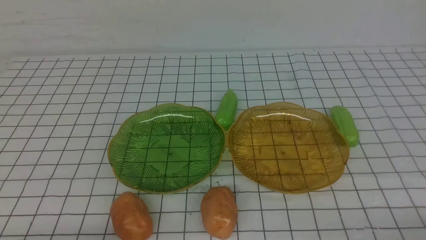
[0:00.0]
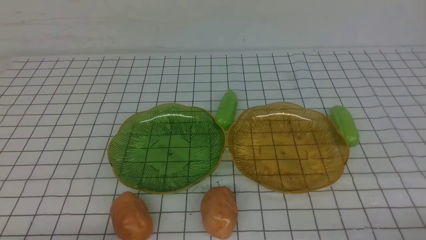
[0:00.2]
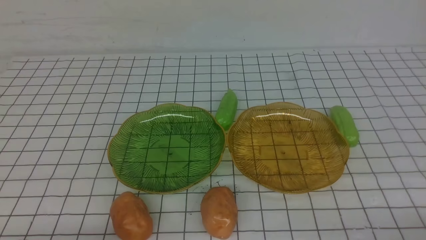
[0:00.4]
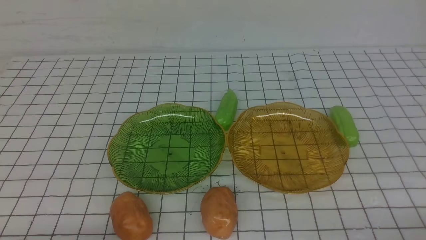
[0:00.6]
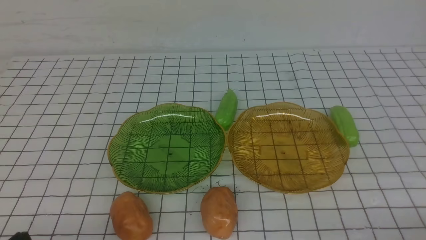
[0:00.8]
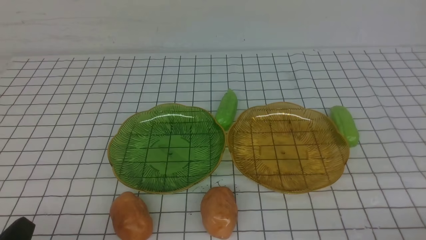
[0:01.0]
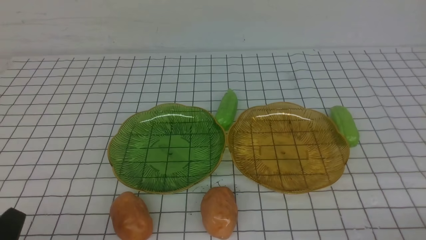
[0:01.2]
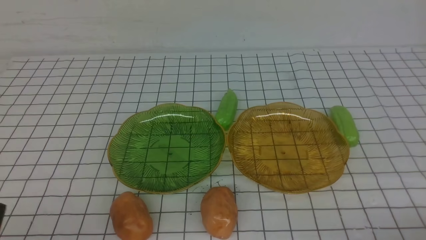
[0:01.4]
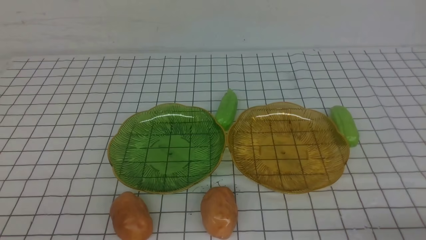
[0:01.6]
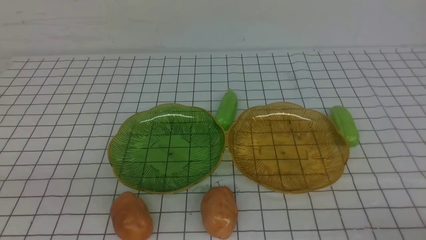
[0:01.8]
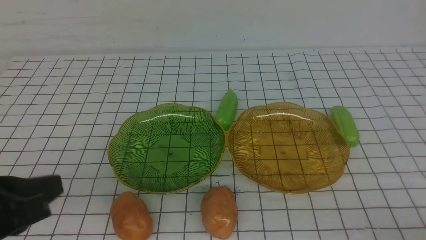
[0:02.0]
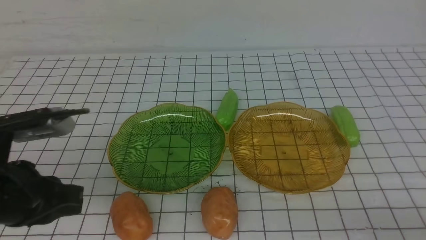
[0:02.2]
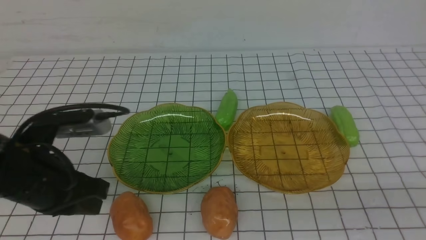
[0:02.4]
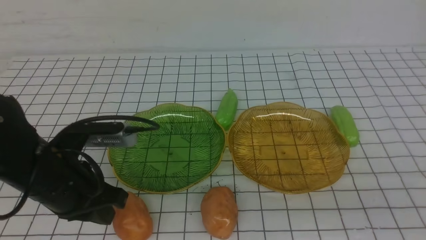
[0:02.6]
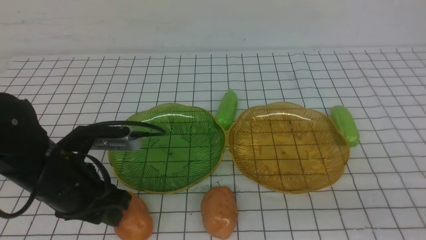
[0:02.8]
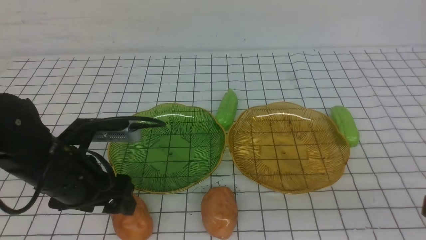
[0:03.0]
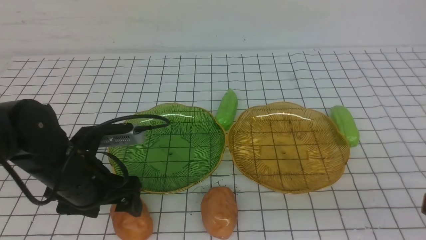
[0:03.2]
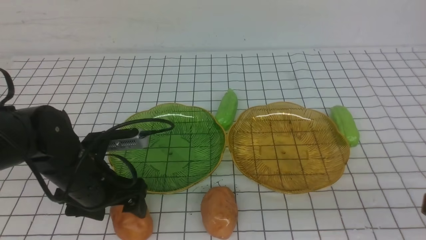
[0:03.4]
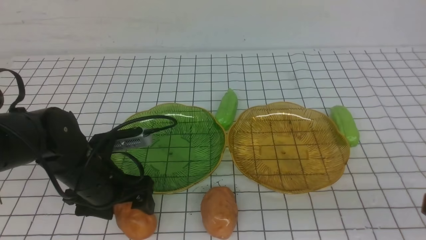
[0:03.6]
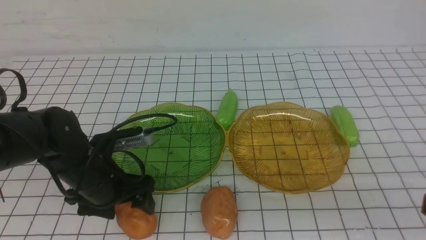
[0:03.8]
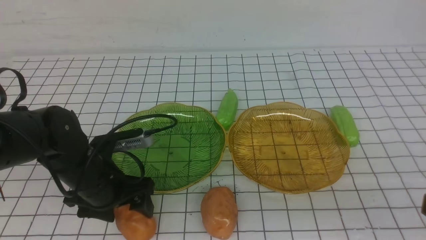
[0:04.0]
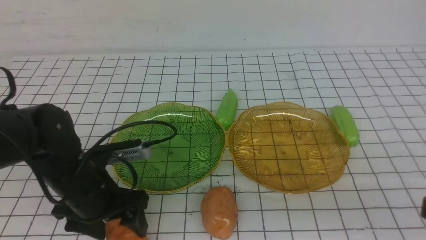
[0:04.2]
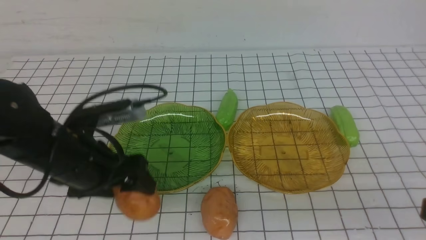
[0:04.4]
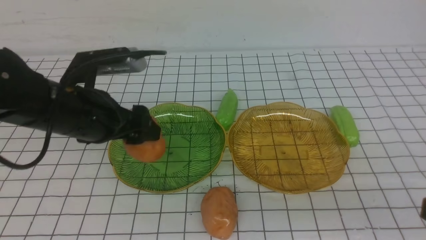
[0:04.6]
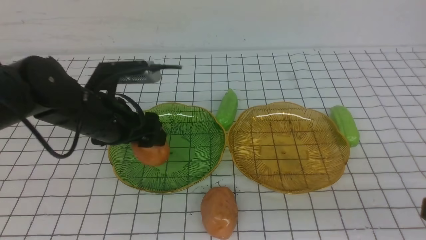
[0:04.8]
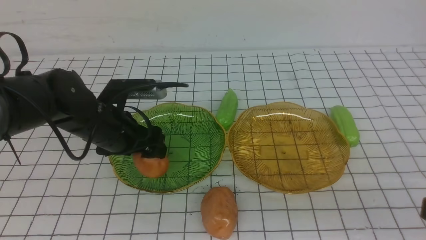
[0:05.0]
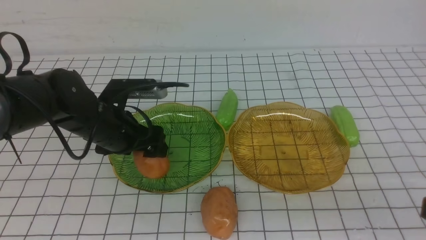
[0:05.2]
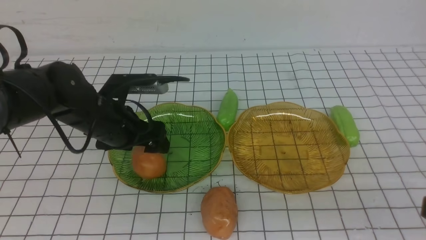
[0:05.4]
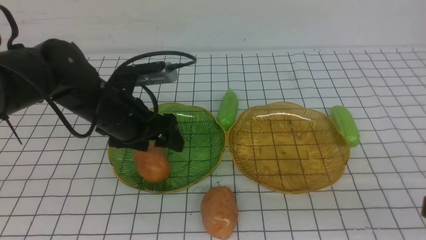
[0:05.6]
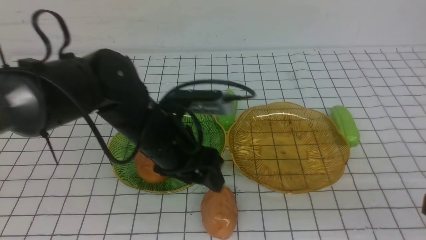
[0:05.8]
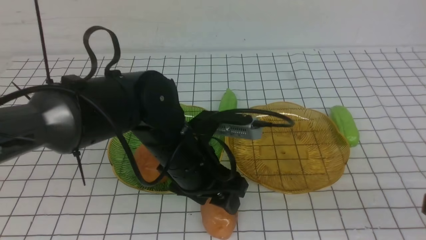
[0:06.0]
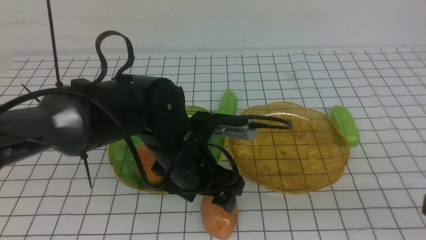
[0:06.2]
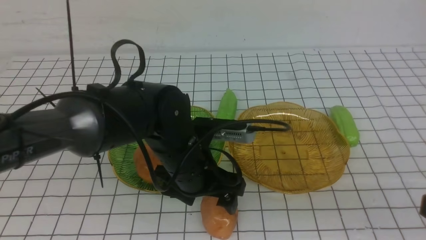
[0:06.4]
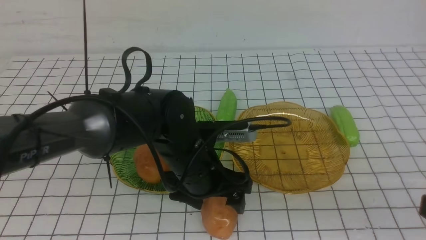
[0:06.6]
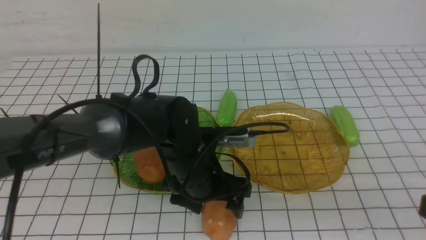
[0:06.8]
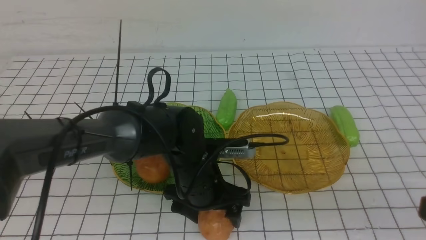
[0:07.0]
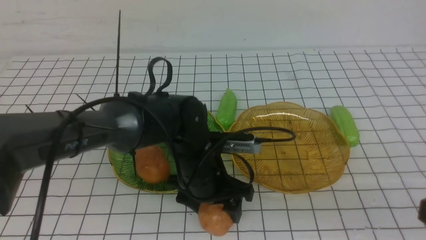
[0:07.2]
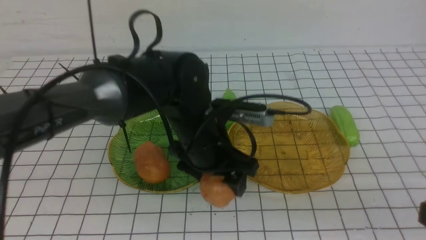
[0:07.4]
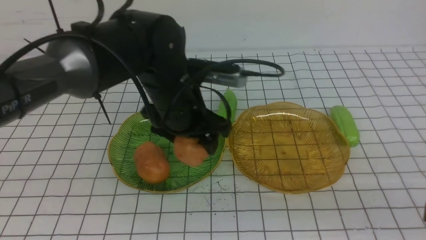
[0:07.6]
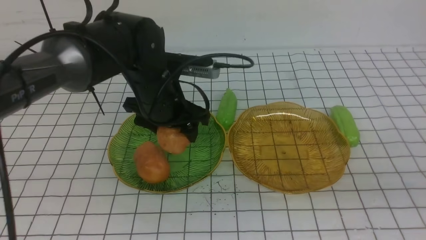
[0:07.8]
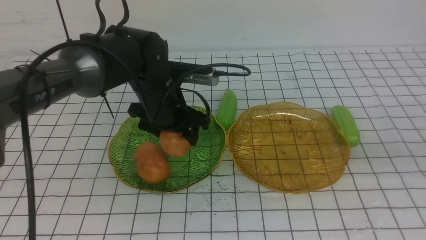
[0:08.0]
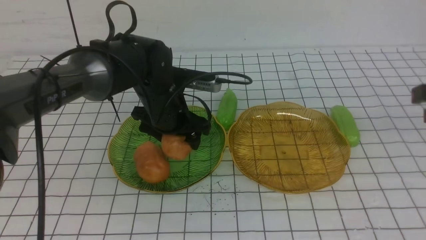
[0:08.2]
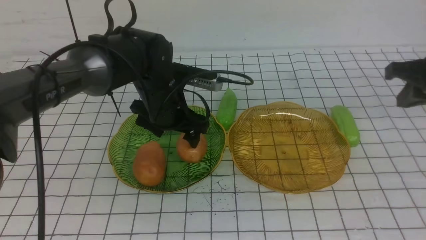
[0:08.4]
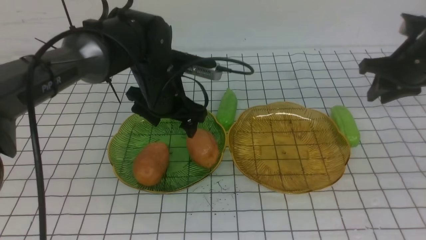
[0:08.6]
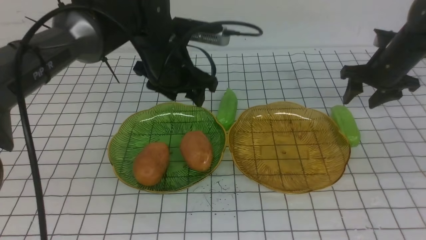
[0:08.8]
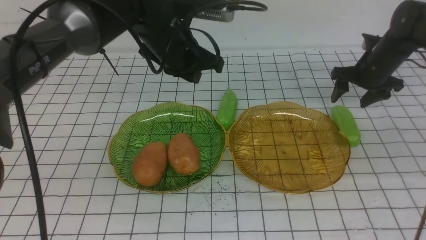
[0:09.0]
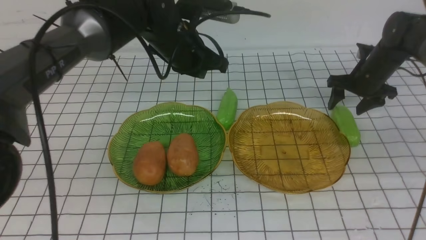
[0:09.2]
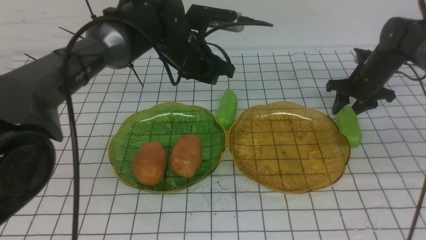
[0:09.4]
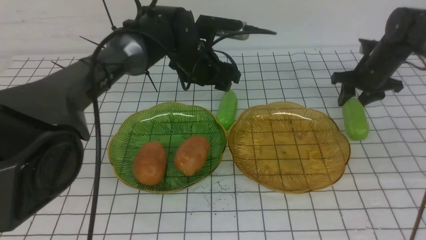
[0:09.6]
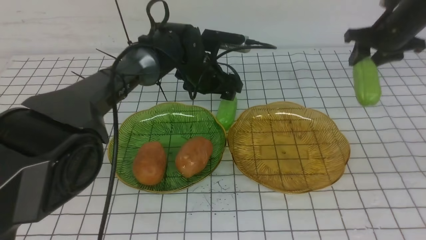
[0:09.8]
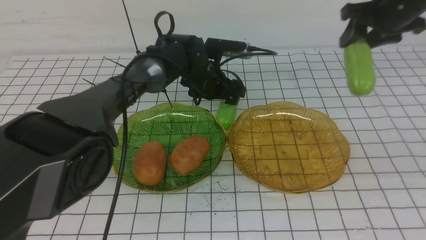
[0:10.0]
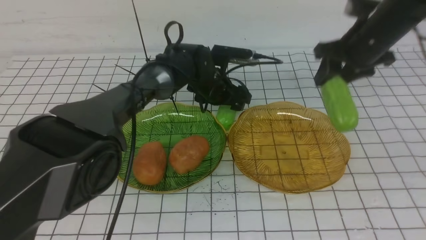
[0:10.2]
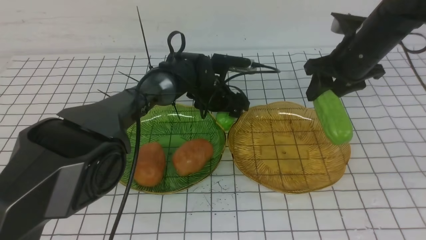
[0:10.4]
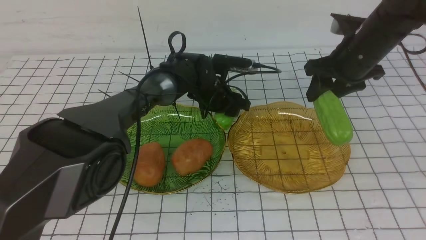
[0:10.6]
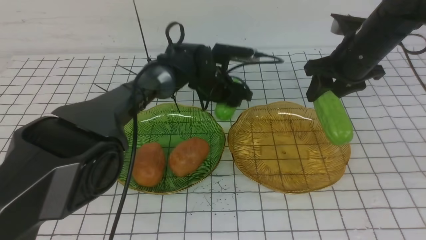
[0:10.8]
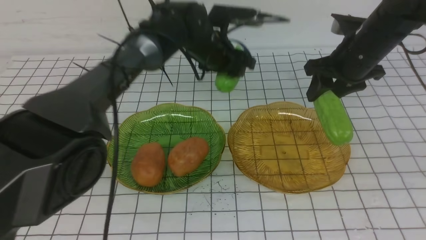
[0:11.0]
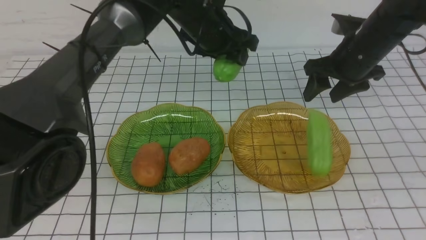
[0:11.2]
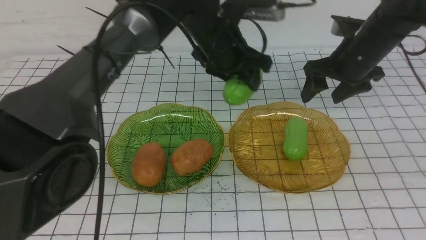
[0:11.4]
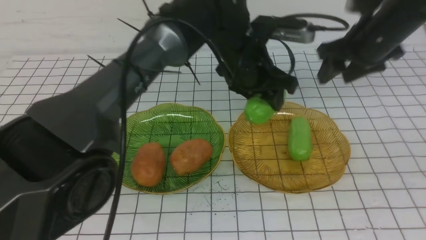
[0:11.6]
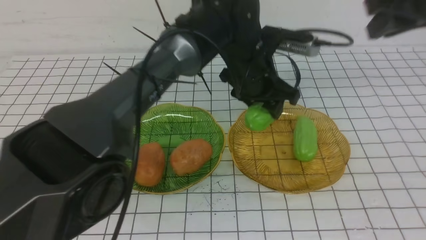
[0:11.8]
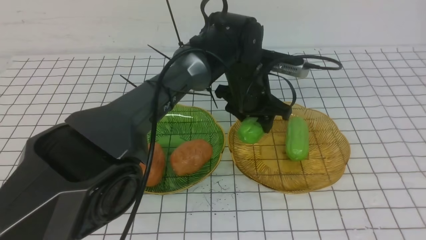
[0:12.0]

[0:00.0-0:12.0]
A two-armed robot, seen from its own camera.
Step, 0:00.0 to 0:08.4: Grab a potato with your left arm and put it on the left plate.
Step, 0:08.6 to 0:11.2: use the right arm to grab a chayote and put it into the right plate.
0:01.6 to 0:03.0: The left gripper goes roughly 20 cm forward, and opens; the right gripper travels upward by about 10 cm.
0:03.0 to 0:04.4: The grippers move only a little.
0:04.4 to 0:06.0: The left gripper travels to the right by approximately 10 cm.
0:06.0 to 0:07.6: The left gripper shifts approximately 5 cm forward, and travels downward and back again, approximately 5 cm each way.
0:07.6 to 0:09.0: The left gripper shifts roughly 10 cm forward, and closes. The right gripper travels forward by some 40 cm, and opens its fingers.
0:09.0 to 0:10.4: The left gripper is displaced downward and forward by some 15 cm, and opens, while the right gripper travels upward, to the left and backward by some 15 cm.
0:10.4 to 0:12.0: The left gripper is displaced upward, backward and to the right by approximately 15 cm, while the right gripper shifts approximately 30 cm backward and upward, and closes its fingers.

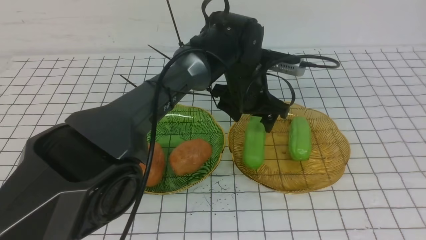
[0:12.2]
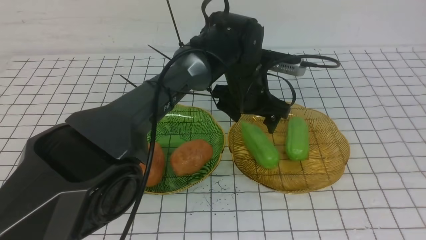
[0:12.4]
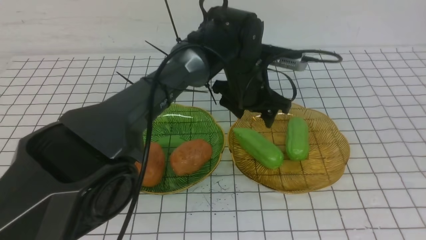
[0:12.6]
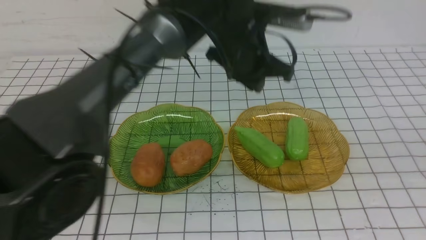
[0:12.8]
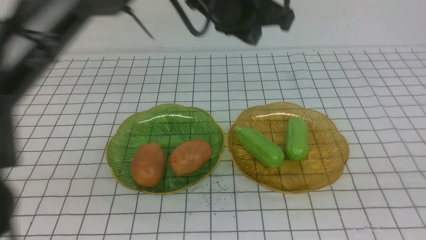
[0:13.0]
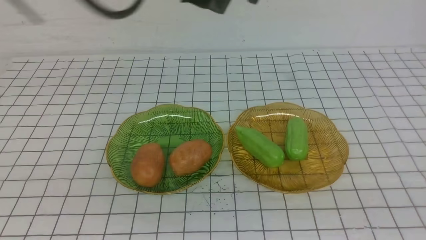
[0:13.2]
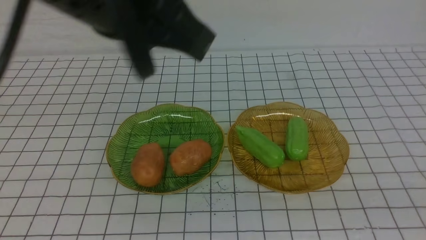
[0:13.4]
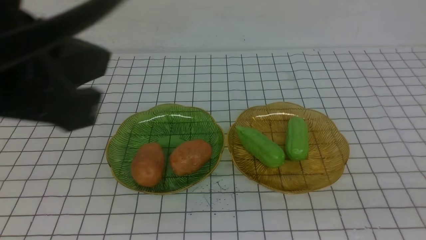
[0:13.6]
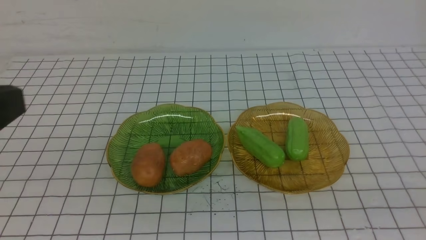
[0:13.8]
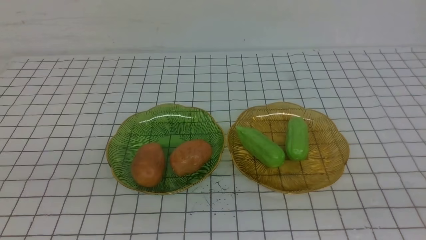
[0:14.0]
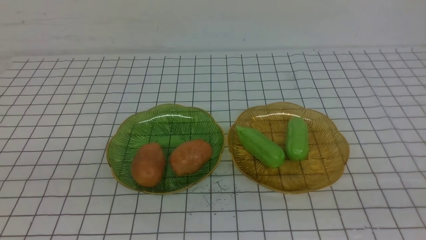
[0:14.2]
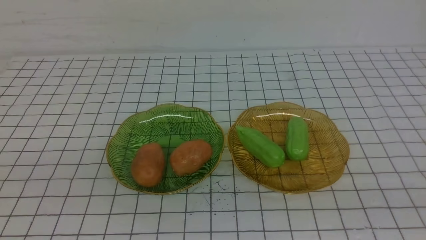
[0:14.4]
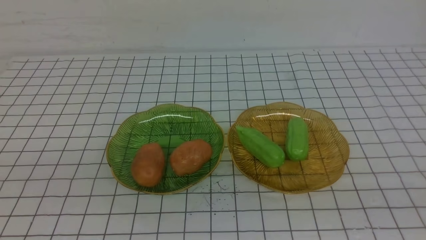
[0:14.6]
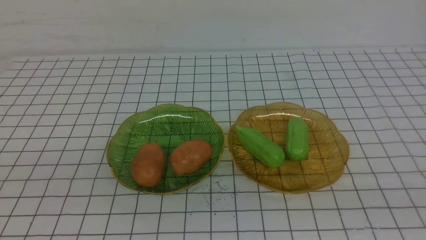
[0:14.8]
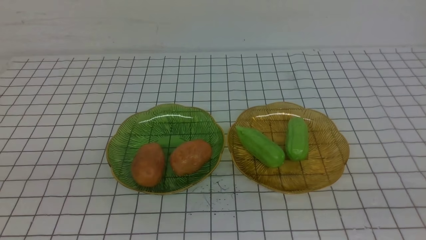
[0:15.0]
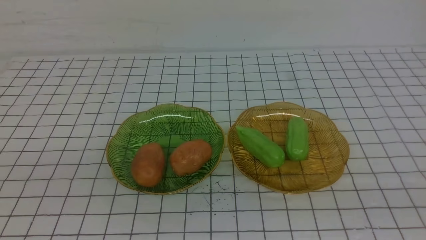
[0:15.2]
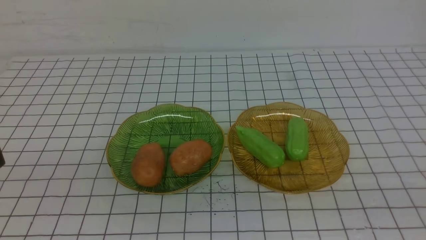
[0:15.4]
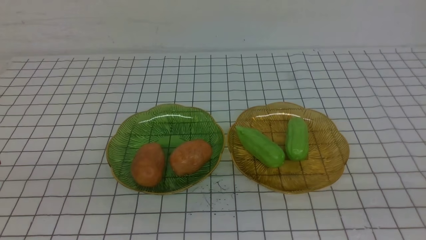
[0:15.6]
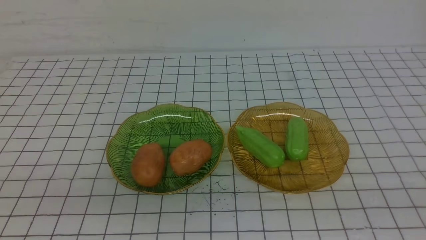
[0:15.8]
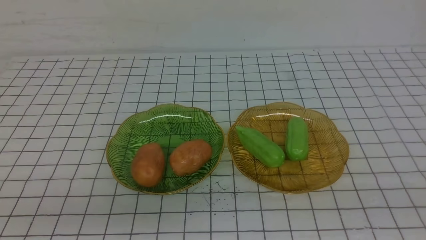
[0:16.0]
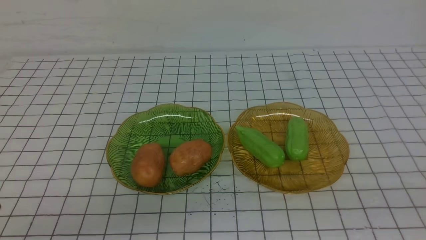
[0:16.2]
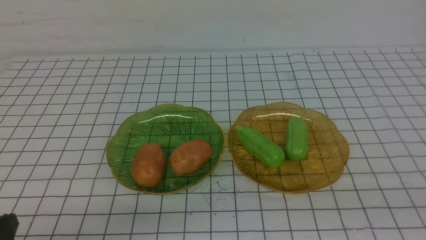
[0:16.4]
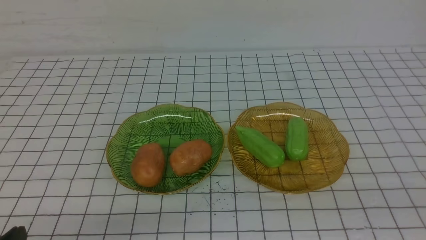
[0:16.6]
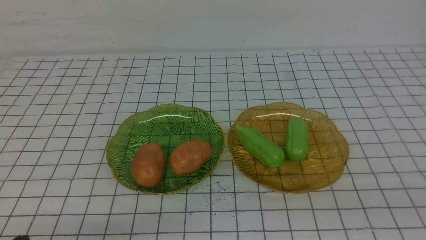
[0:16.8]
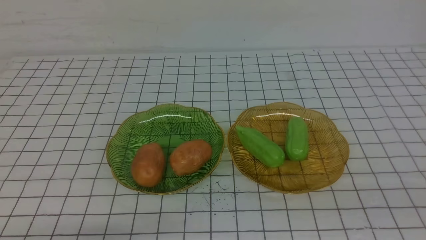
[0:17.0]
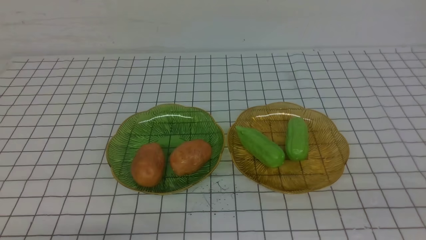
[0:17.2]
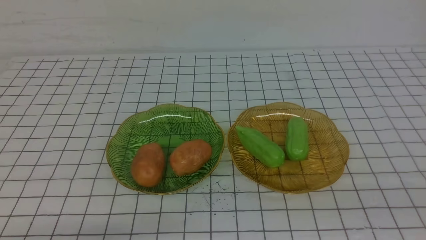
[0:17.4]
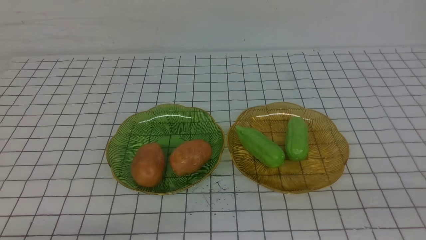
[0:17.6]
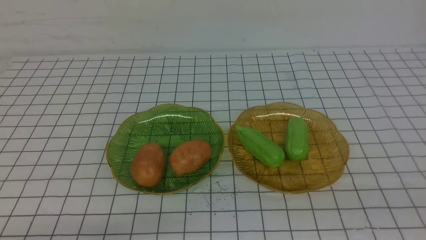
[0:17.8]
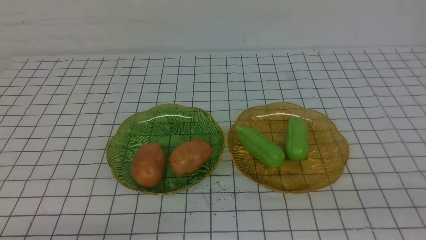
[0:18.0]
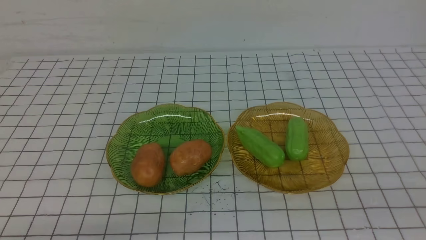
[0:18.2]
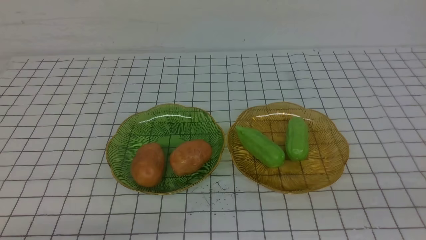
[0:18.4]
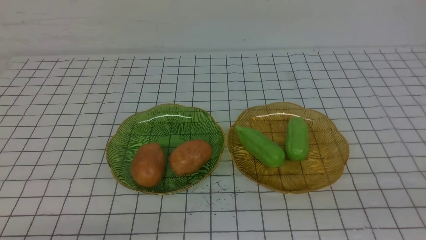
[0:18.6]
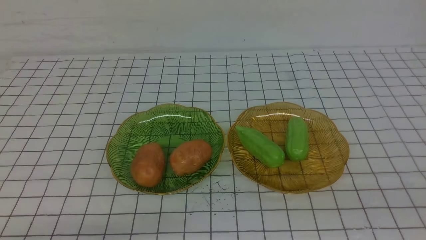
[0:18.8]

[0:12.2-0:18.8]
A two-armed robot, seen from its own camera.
0:12.2 to 0:13.8: The right gripper moves backward and downward, about 20 cm, while the left gripper moves backward, to the left and upward, roughly 50 cm, and closes its fingers.
0:13.8 to 0:15.4: The left gripper shifts some 5 cm downward.
